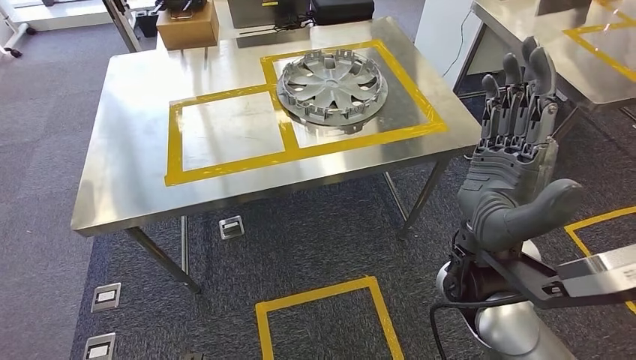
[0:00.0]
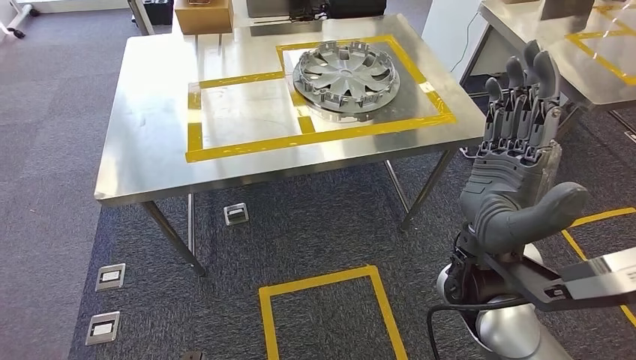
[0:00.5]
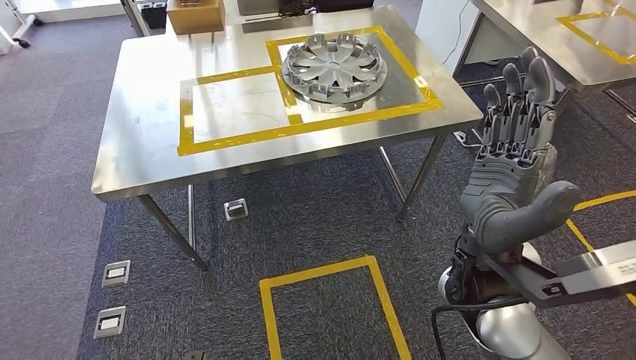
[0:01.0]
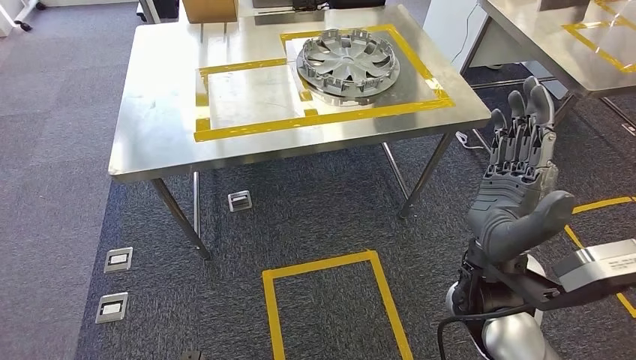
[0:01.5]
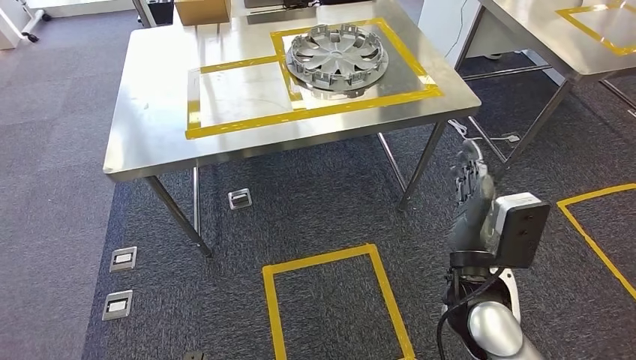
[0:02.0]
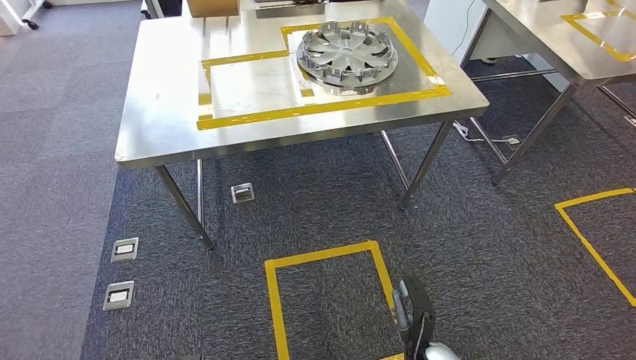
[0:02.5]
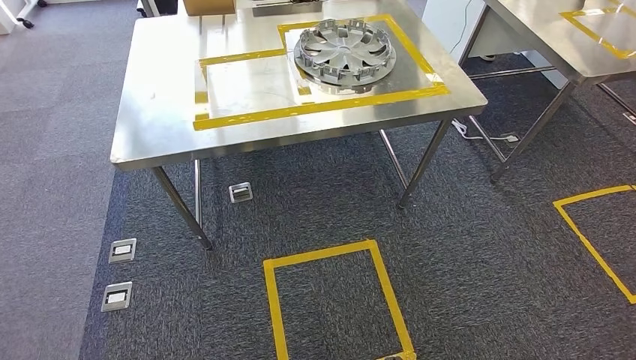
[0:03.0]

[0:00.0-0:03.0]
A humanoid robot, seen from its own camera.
Step, 0:00.0 to 0:02.5: Move to the initial position of the shelf.
